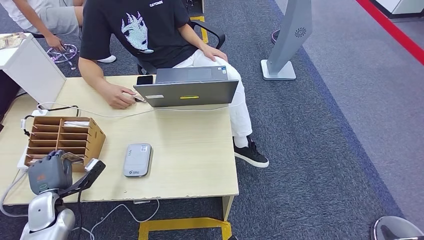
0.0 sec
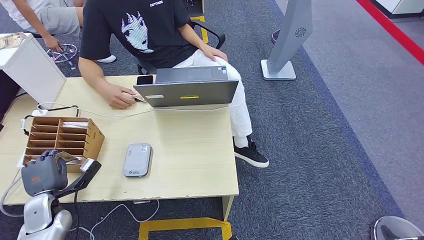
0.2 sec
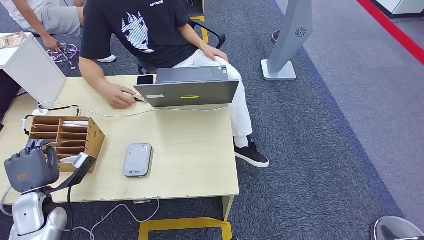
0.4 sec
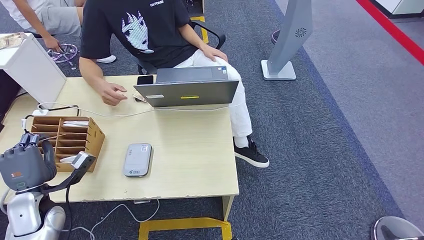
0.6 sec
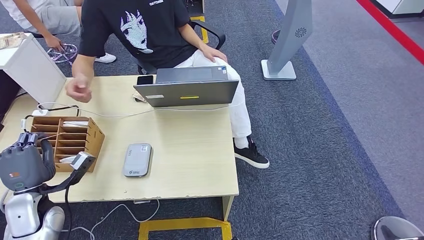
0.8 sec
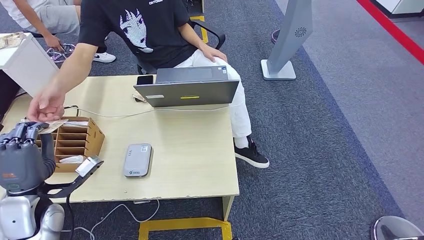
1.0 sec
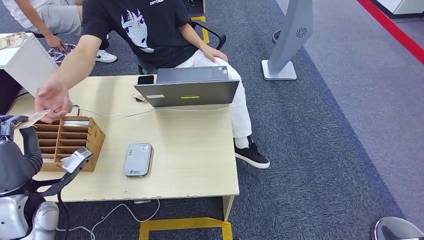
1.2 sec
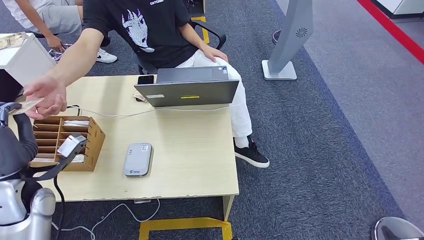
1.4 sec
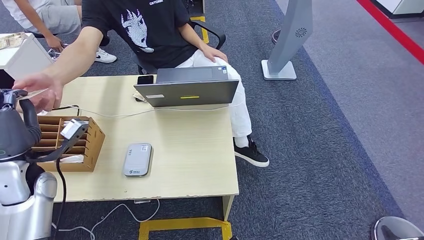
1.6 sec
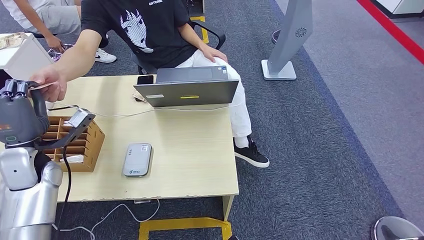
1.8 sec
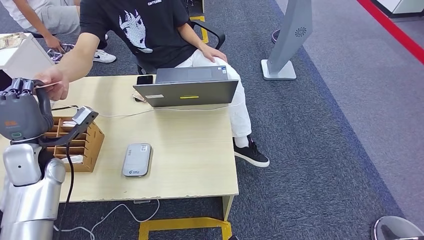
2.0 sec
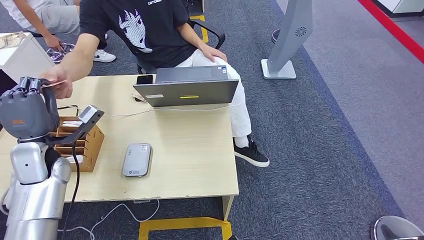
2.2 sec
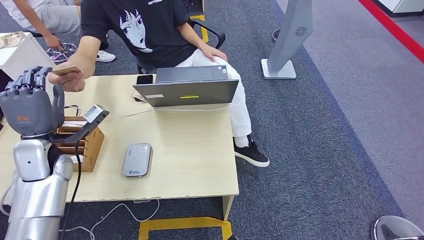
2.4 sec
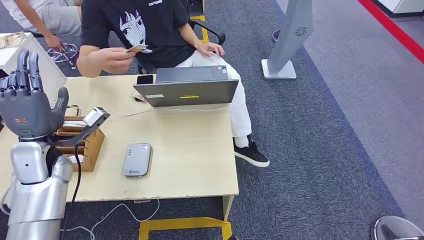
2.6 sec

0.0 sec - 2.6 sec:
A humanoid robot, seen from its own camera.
Step, 1.0 sec - 2.4 sec: Hand the room key to the person.
0.0 sec - 1.2 sec: The left hand shifts about 15 cm upward.
1.2 sec - 2.6 sec: The left hand goes about 10 cm forward.

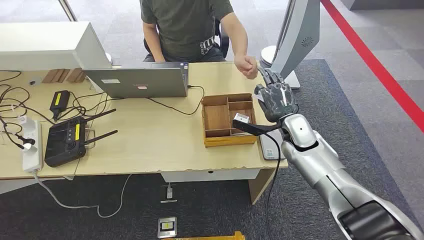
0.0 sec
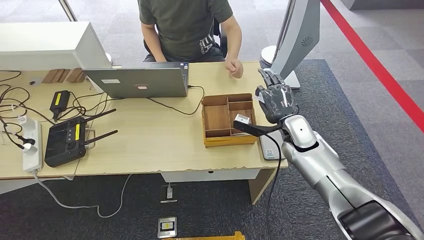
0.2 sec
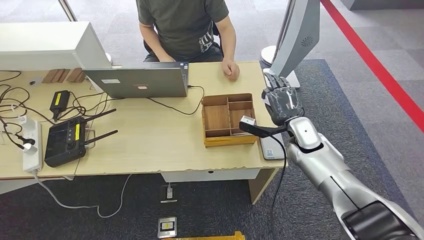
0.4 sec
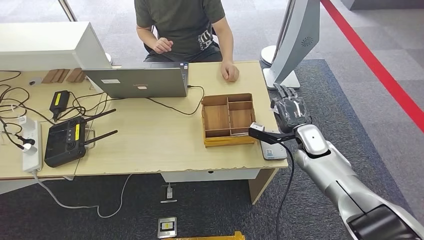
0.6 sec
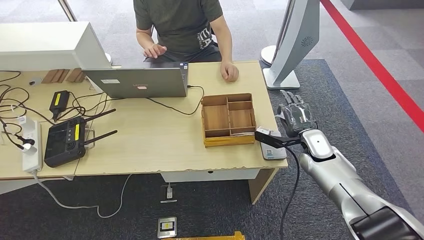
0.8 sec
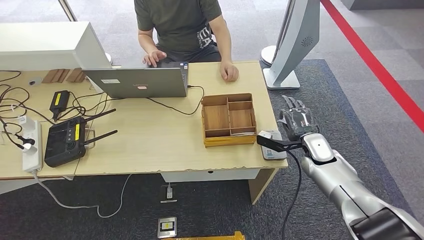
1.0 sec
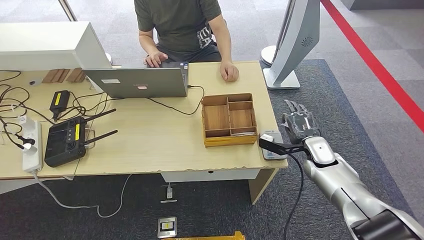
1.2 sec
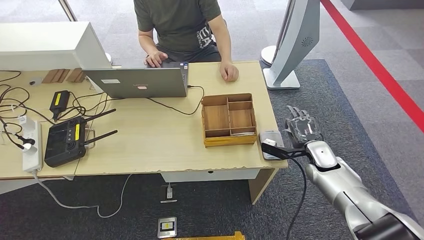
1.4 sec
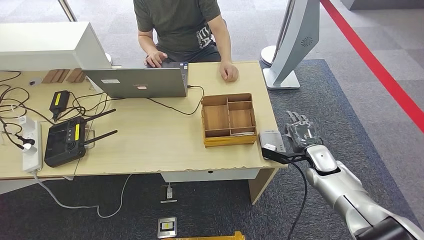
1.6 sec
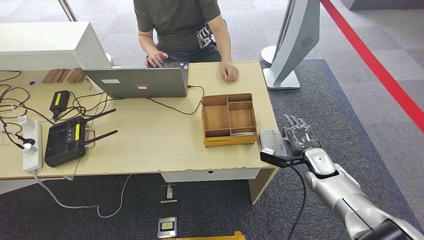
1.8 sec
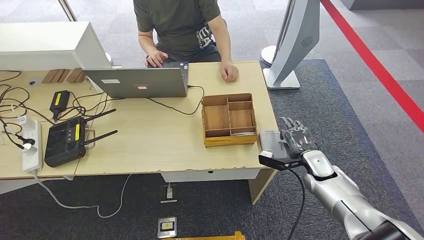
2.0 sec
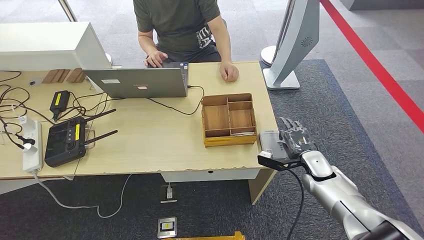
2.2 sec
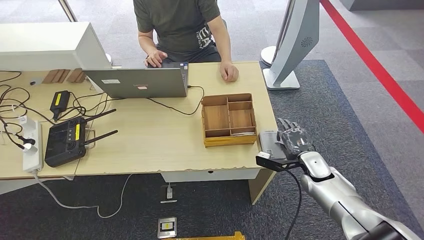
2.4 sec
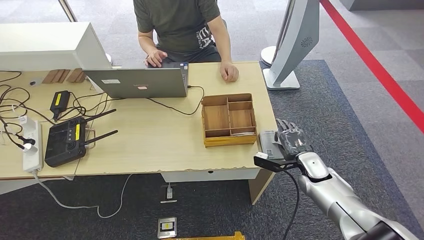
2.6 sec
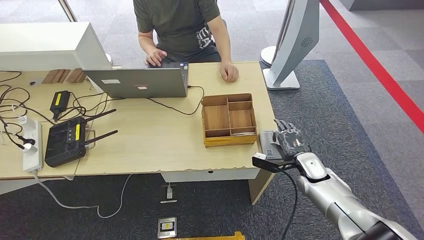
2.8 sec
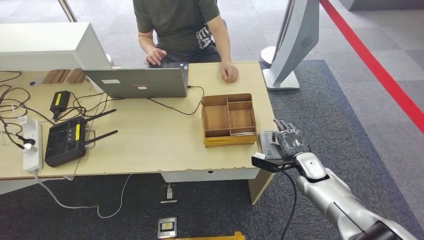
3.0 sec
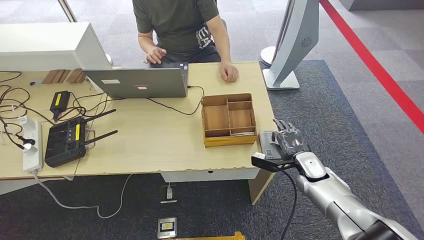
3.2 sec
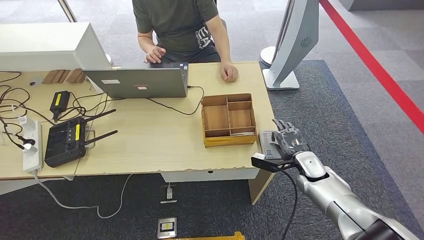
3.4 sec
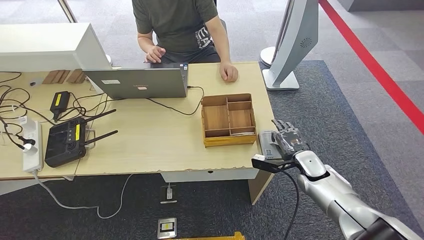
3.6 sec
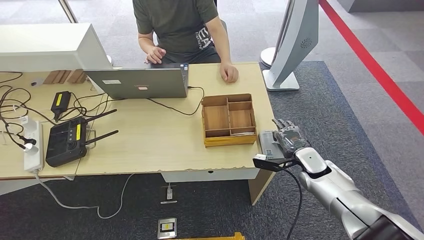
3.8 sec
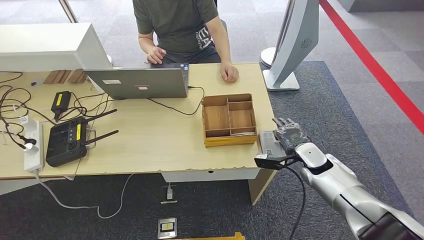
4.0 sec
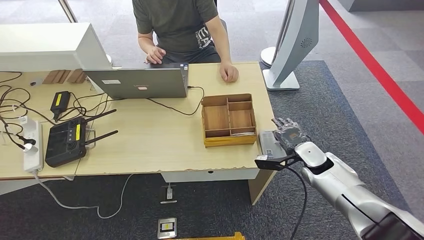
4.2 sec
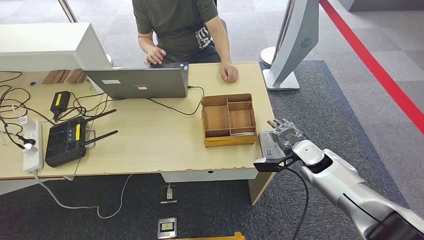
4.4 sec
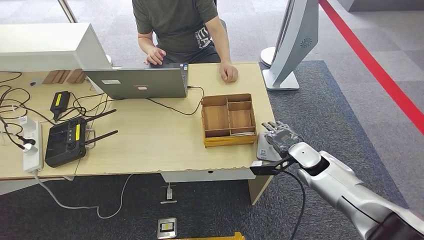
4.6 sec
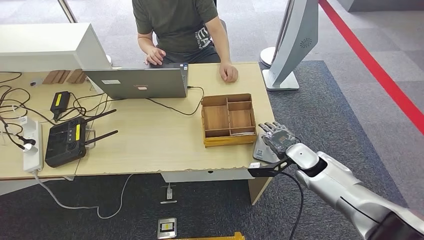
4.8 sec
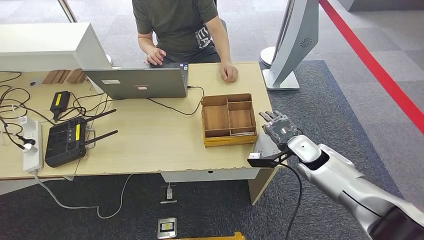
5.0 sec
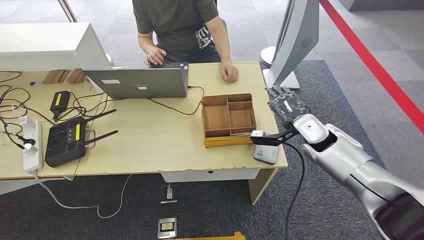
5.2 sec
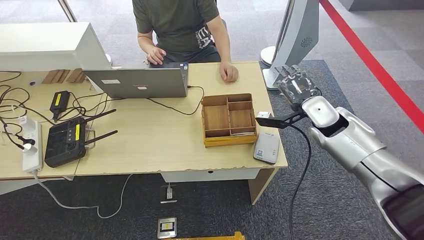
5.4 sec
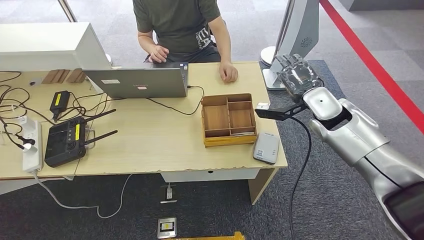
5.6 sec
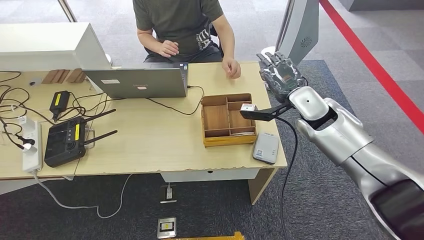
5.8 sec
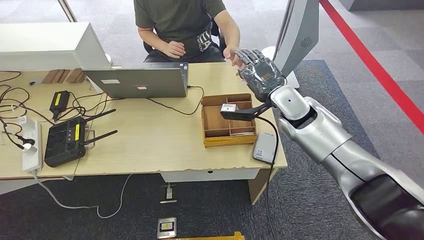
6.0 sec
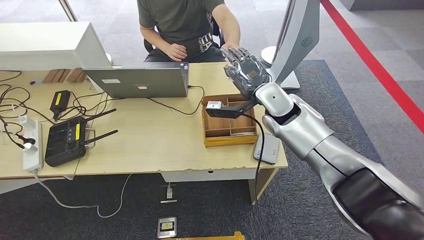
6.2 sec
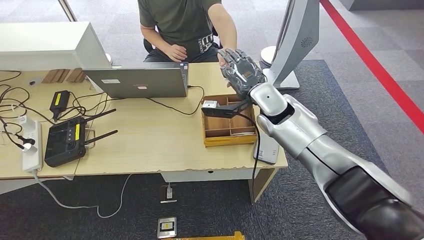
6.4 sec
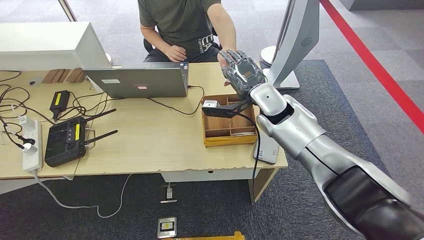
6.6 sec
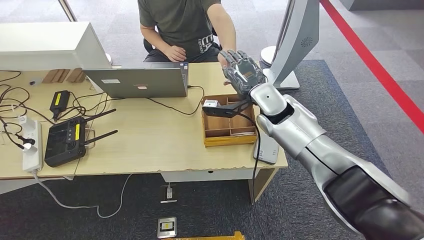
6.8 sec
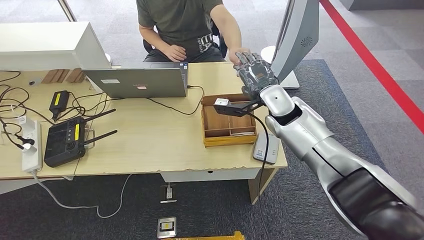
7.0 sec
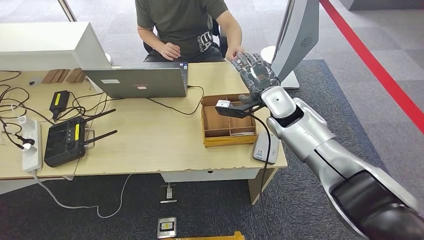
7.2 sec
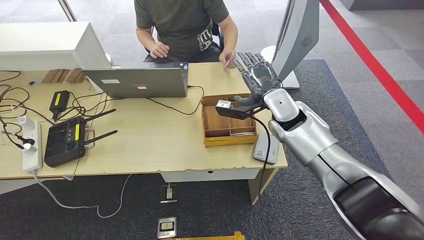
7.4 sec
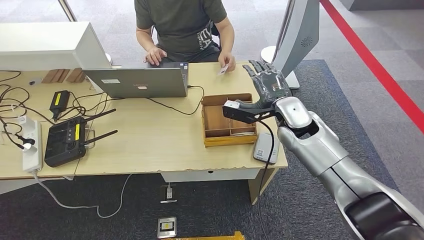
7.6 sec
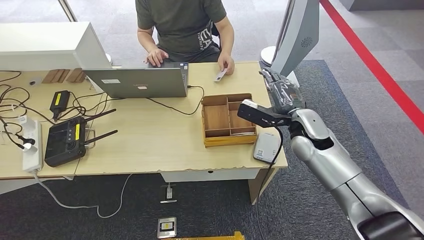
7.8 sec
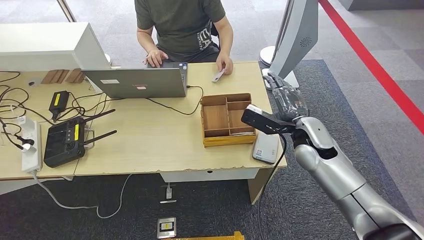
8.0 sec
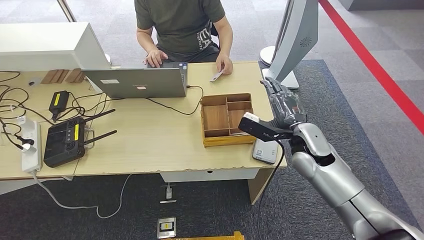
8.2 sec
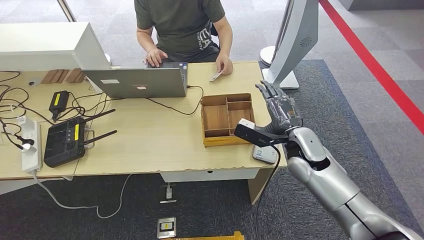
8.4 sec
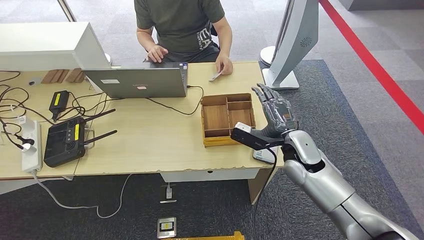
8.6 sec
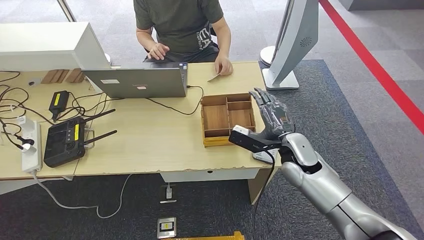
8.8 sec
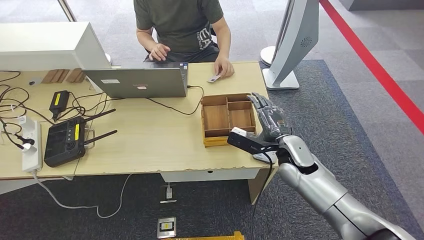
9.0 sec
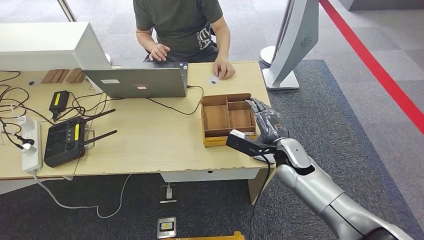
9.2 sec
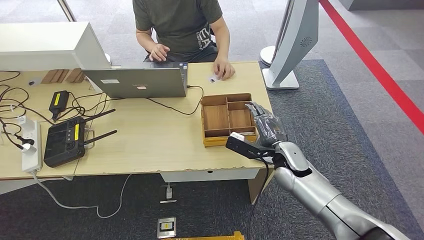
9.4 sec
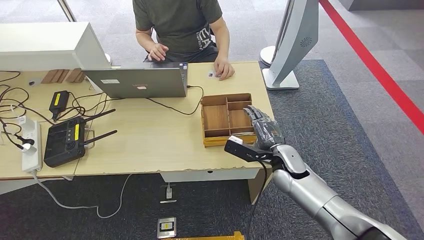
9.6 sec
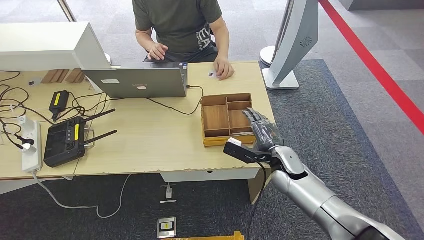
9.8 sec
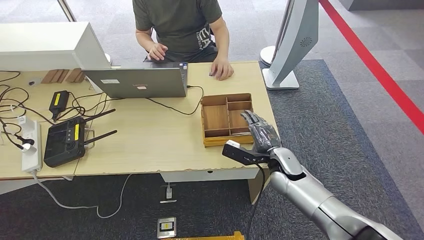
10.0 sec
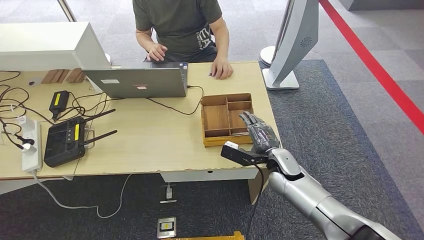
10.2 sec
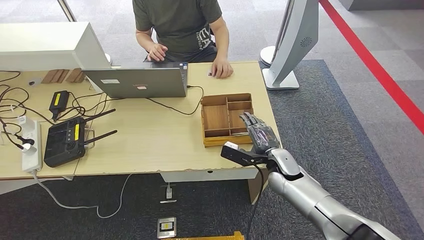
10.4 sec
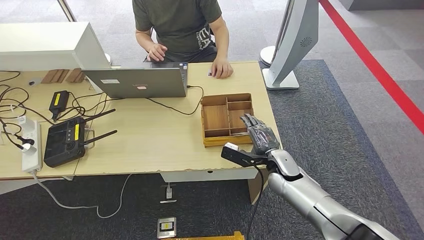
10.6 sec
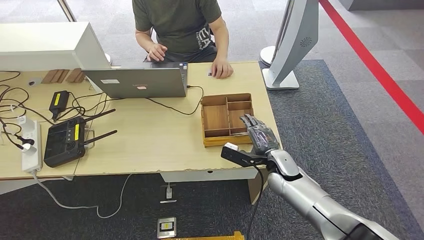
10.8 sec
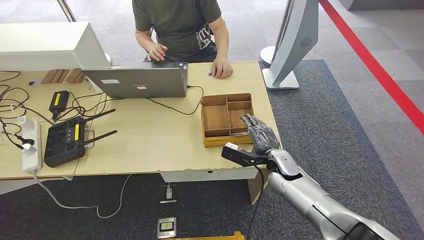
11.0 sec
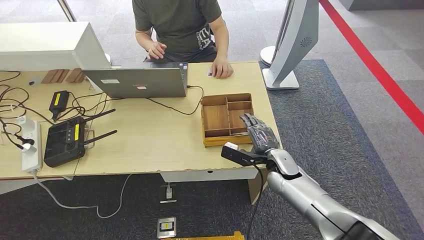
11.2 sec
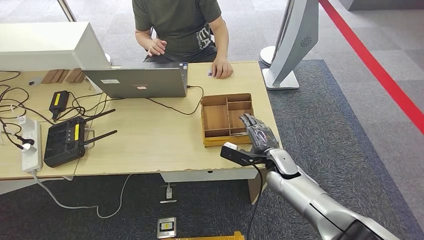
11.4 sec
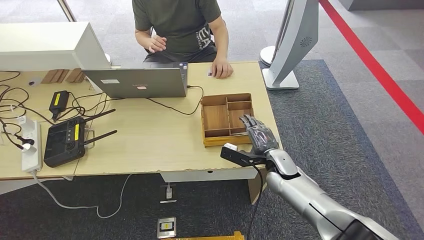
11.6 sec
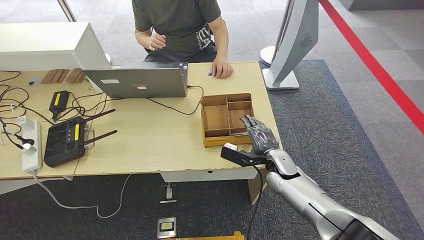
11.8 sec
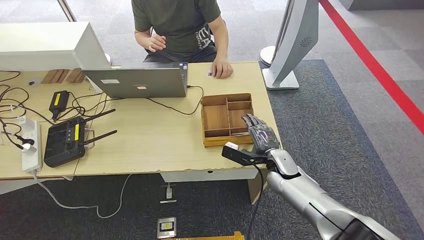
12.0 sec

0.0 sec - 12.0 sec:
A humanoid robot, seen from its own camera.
Step, 0.0 sec - 0.6 sec: Take the ID card from the person's hand.
Step, 0.8 sec - 5.4 sec: Place the ID card on the card reader.
Step, 5.6 sec - 9.2 sec: Hand the ID card to the person.
1.6 sec - 3.0 sec: The hands make only small movements.
3.0 sec - 4.4 sec: The right hand shifts by approximately 5 cm.
4.4 sec - 6.0 sec: The right hand goes about 20 cm upward and to the left.
6.0 sec - 7.6 sec: The hands move only a little.
7.6 sec - 9.0 sec: The right hand is displaced downward and backward by about 10 cm.
9.0 sec - 10.4 sec: The right hand goes some 5 cm downward.
10.4 sec - 12.0 sec: The hands stay close to where they were, moving slightly.

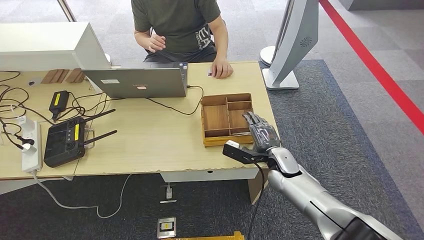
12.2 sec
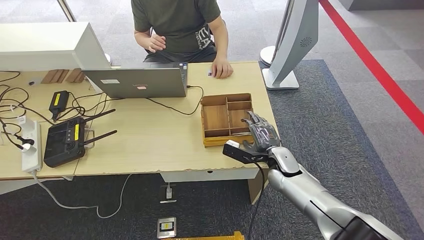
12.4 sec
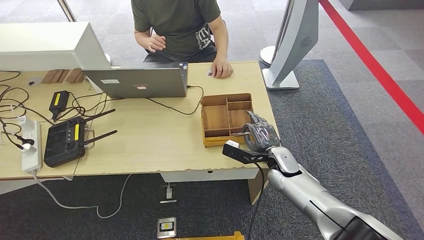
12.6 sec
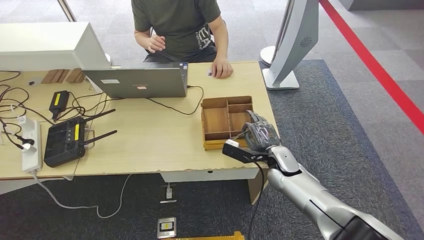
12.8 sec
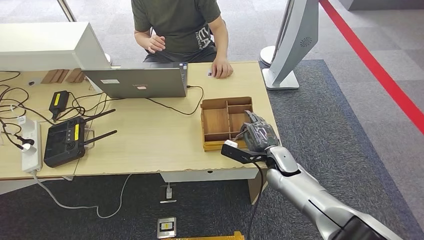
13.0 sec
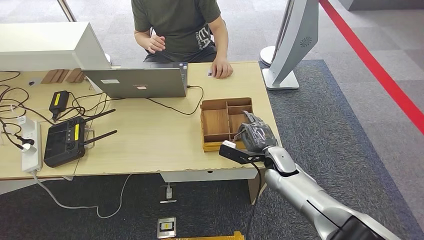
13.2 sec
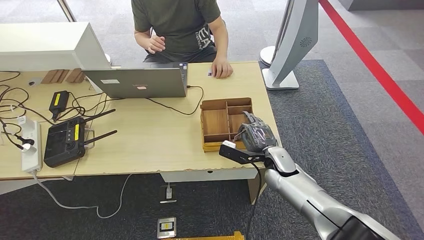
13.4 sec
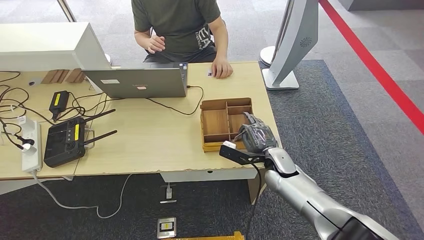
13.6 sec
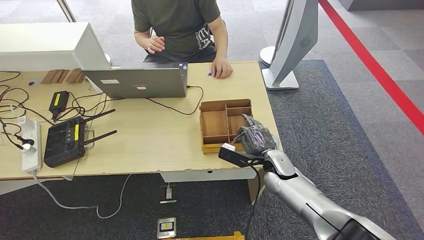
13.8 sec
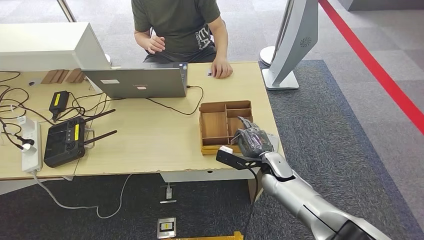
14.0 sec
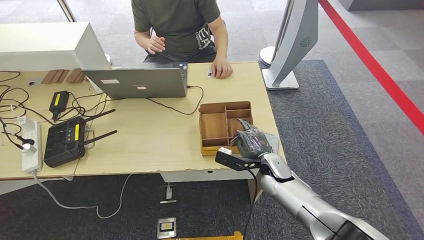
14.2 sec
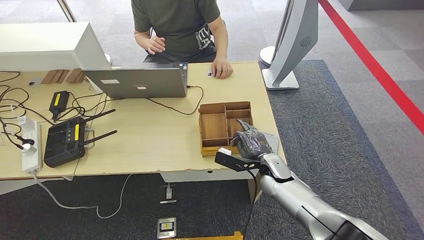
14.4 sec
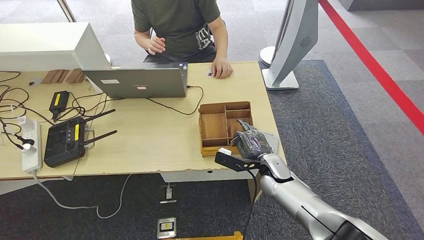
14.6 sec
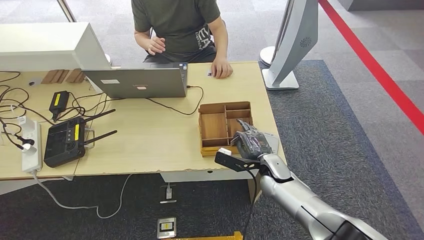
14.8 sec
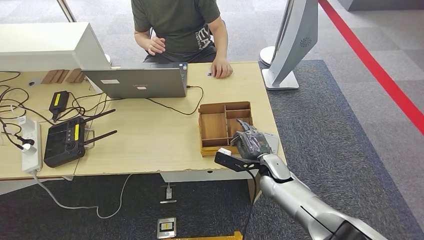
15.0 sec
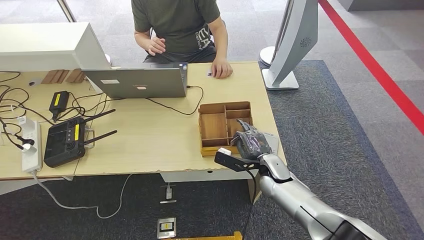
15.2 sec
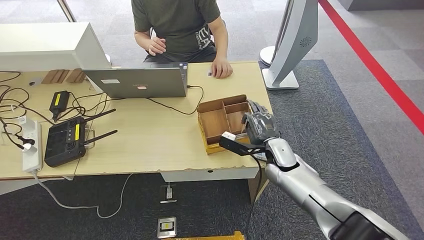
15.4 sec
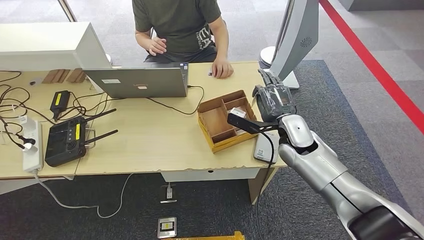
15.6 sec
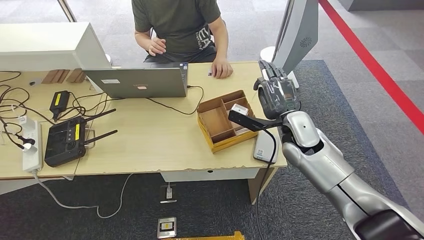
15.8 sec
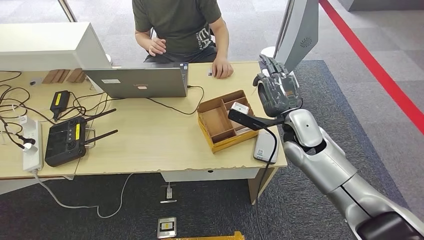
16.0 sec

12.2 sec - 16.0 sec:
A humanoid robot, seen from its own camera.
Step, 12.2 sec - 15.2 sec: Pick up the room key from the key card box.
12.2 sec - 13.4 sec: Both hands stay put.
13.4 sec - 14.8 sec: The hands make only small movements.
14.8 sec - 16.0 sec: The right hand is displaced upward by some 15 cm.
